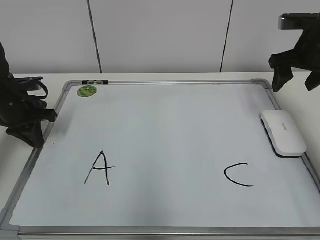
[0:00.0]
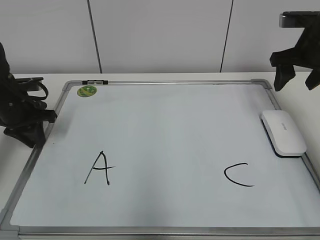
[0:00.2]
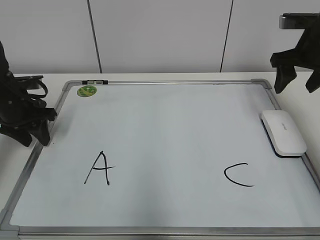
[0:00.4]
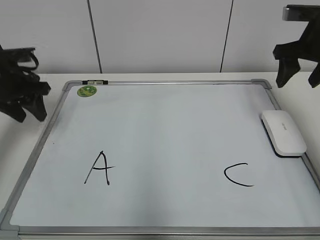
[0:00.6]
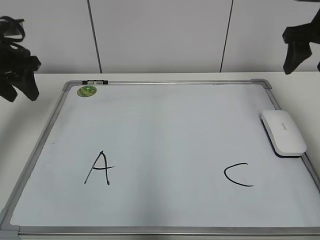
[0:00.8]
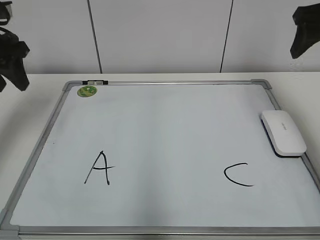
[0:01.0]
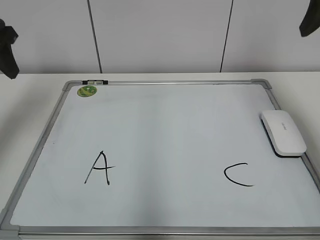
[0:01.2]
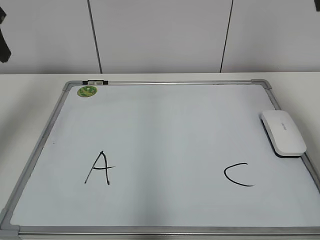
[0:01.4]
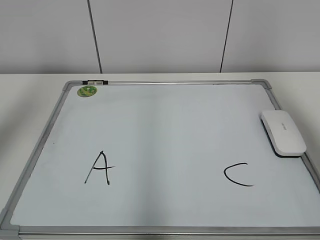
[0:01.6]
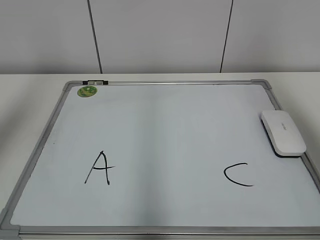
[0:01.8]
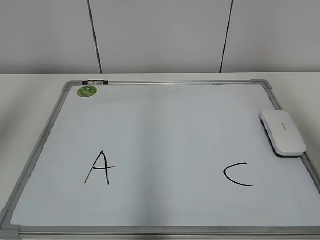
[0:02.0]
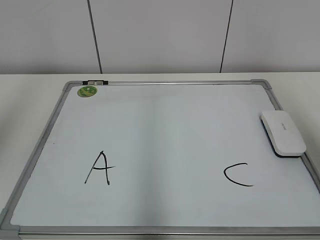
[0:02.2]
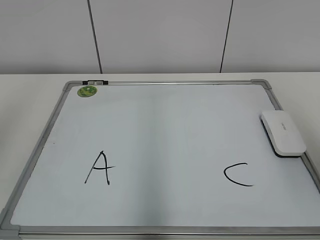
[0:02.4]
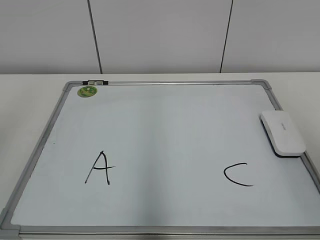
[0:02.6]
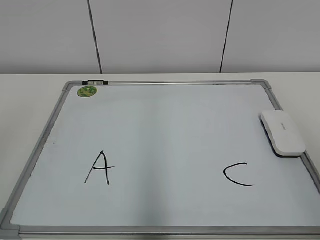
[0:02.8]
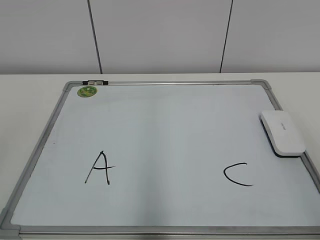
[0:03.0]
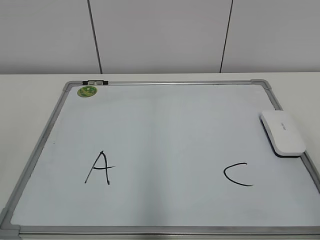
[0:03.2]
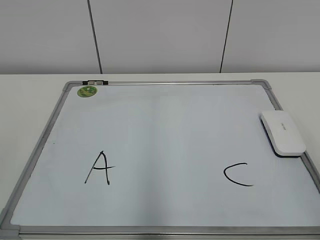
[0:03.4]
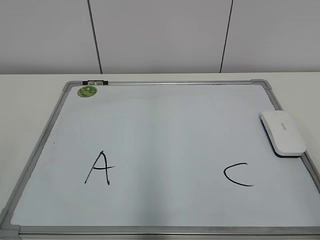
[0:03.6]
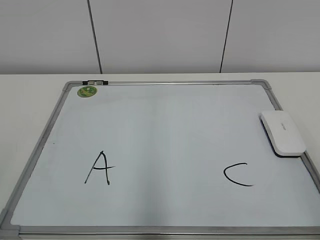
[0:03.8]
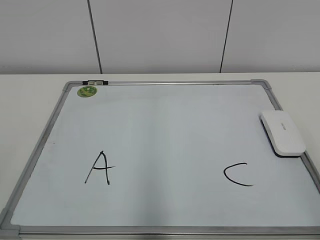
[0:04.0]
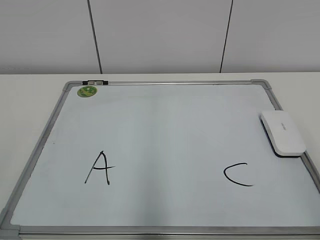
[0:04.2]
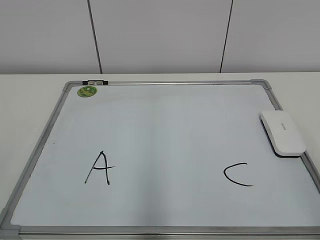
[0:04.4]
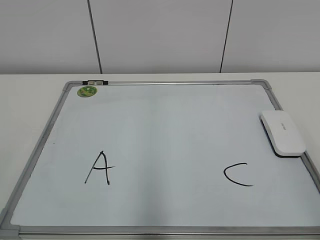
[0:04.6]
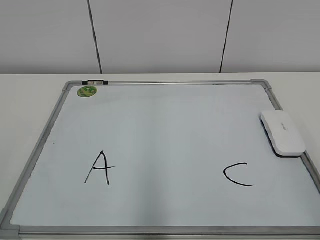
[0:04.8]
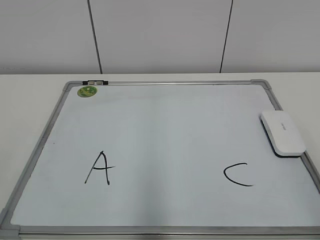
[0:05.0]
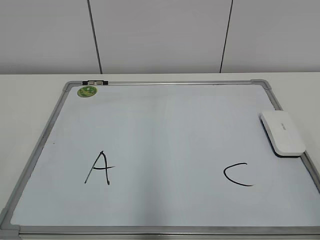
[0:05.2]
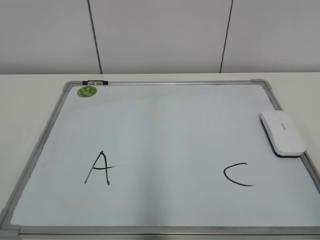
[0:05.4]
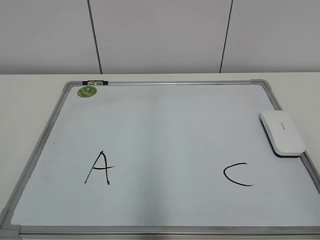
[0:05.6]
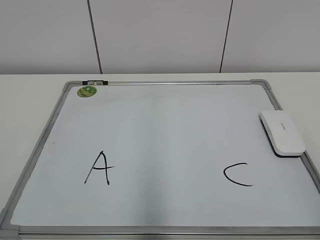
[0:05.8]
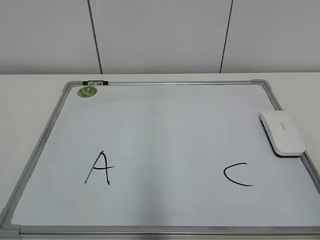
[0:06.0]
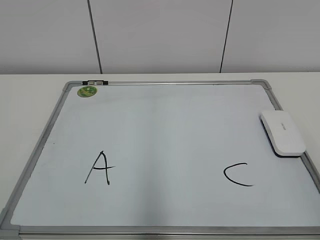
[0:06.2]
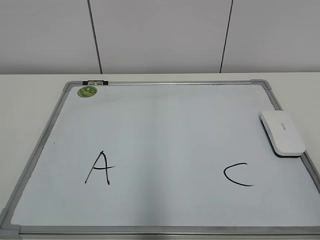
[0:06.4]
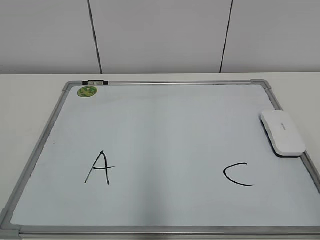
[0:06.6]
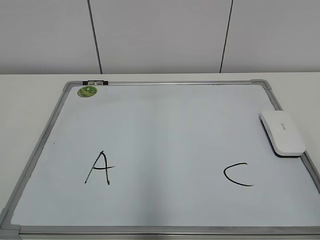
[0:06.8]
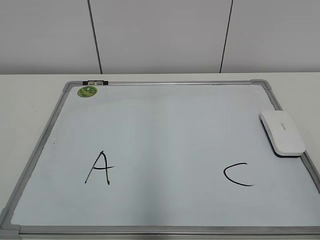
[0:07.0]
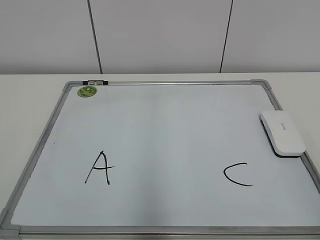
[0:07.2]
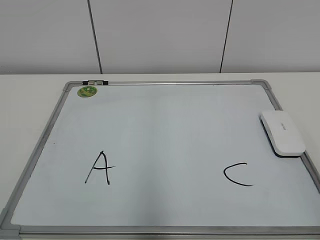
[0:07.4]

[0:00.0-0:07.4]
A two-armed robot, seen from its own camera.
Task of the whole recording: pick up the eraser on the blackboard and erase the letter "B".
0:00.0 to 0:01.4: The right gripper moves upward and backward, some 20 cm, and closes up. The left gripper shifts approximately 20 cm upward, and opens its fingers.
0:01.4 to 0:03.0: The grippers both shift backward by approximately 30 cm.
0:06.0 to 0:07.4: Both grippers stay about where they are.

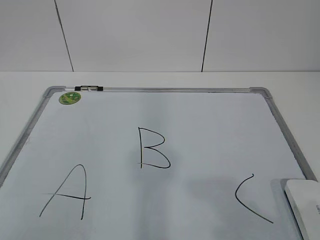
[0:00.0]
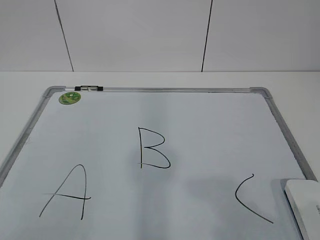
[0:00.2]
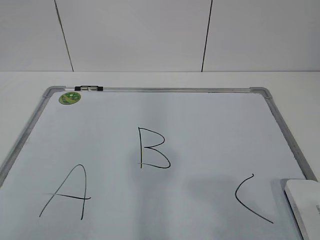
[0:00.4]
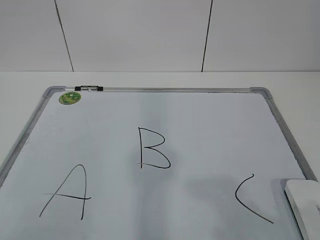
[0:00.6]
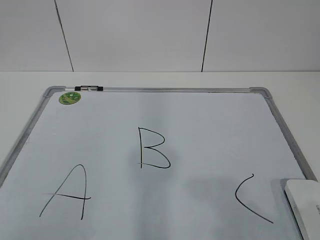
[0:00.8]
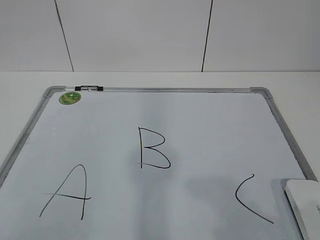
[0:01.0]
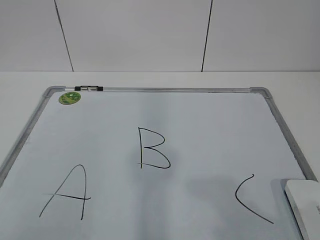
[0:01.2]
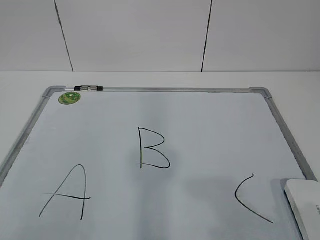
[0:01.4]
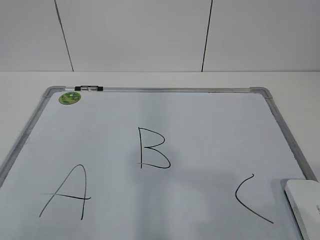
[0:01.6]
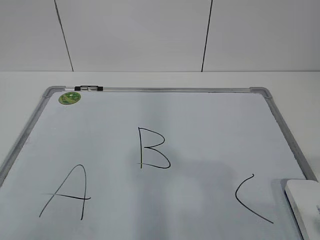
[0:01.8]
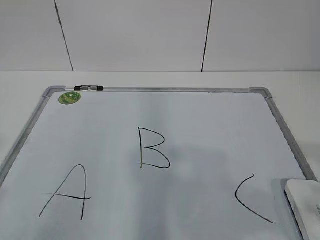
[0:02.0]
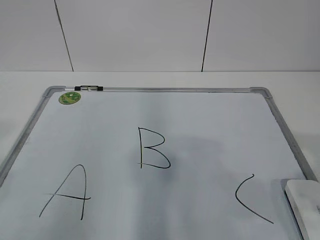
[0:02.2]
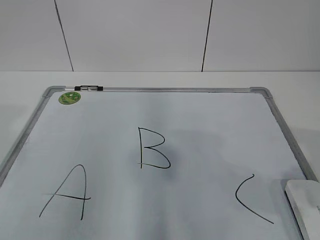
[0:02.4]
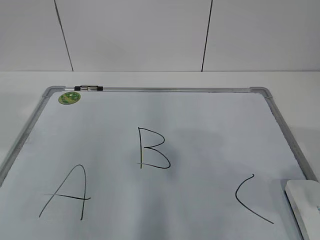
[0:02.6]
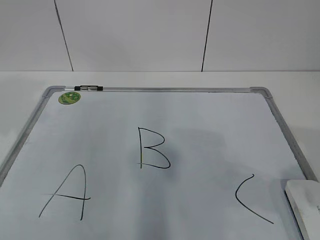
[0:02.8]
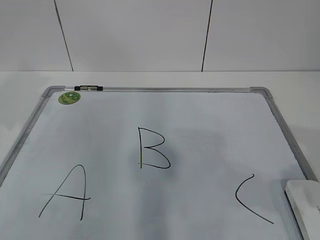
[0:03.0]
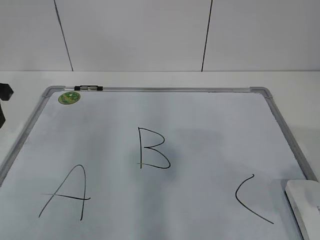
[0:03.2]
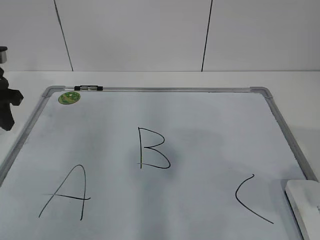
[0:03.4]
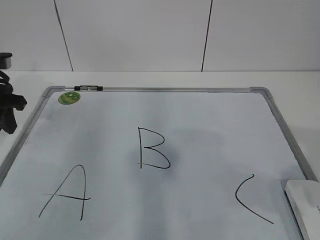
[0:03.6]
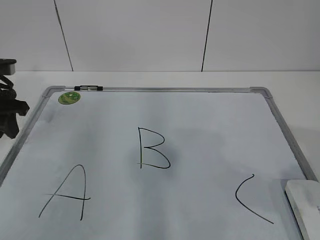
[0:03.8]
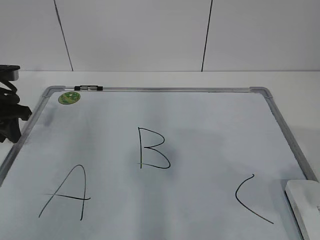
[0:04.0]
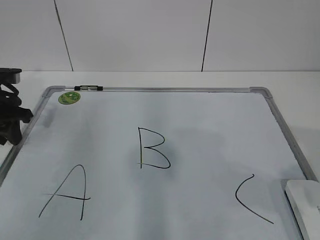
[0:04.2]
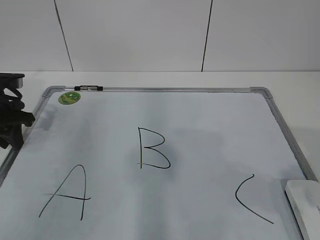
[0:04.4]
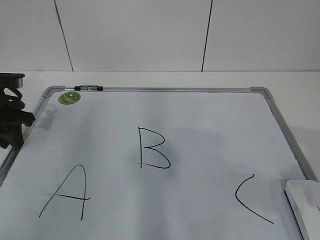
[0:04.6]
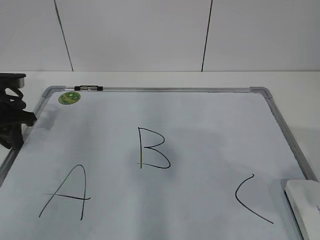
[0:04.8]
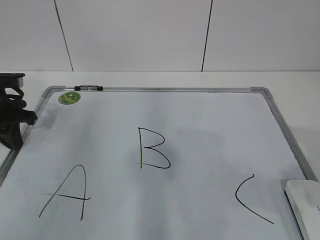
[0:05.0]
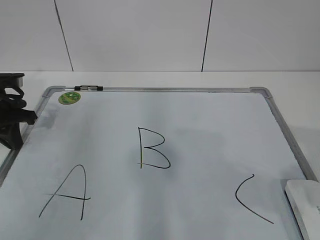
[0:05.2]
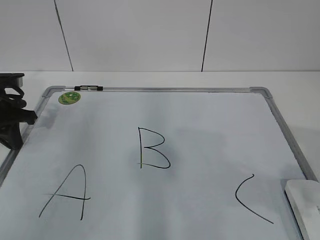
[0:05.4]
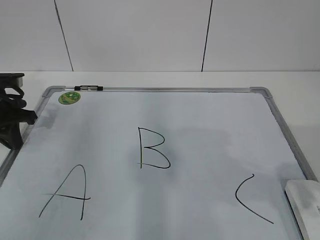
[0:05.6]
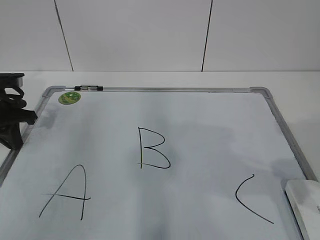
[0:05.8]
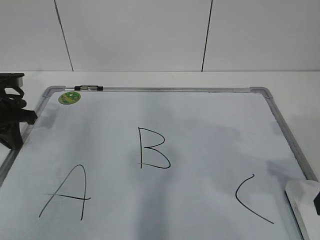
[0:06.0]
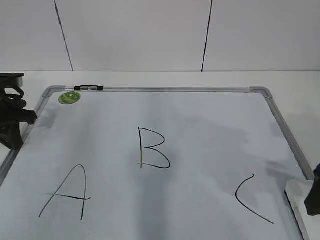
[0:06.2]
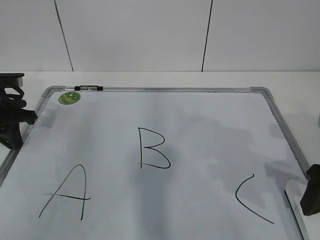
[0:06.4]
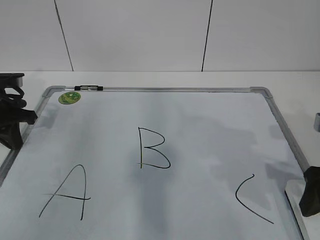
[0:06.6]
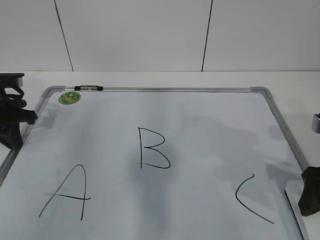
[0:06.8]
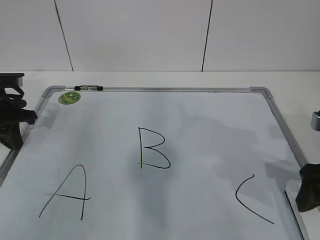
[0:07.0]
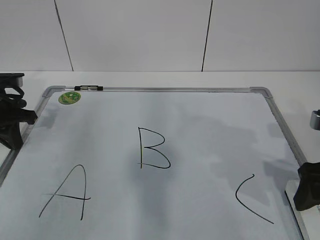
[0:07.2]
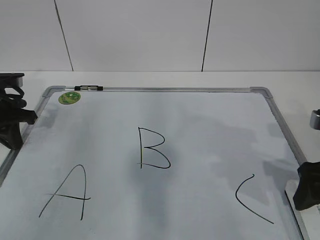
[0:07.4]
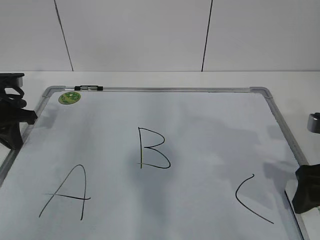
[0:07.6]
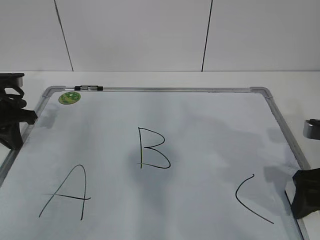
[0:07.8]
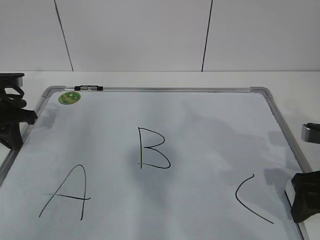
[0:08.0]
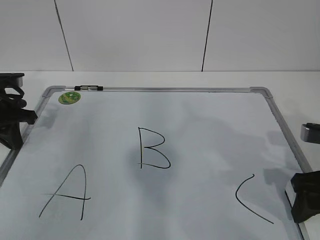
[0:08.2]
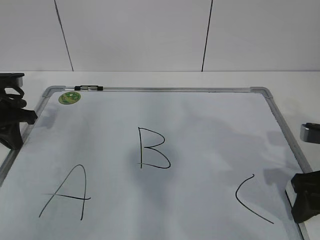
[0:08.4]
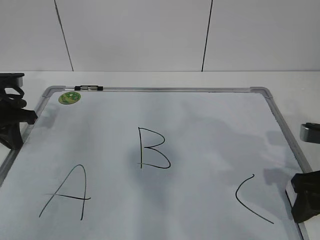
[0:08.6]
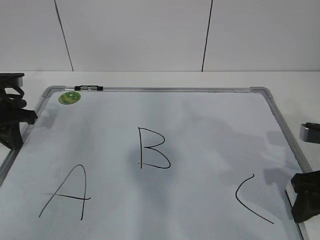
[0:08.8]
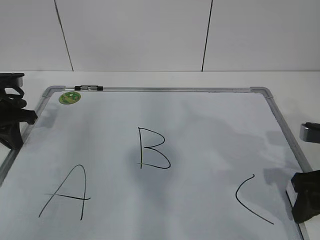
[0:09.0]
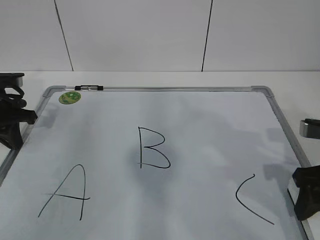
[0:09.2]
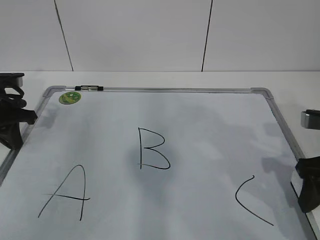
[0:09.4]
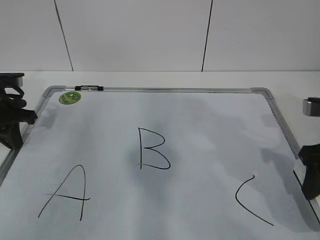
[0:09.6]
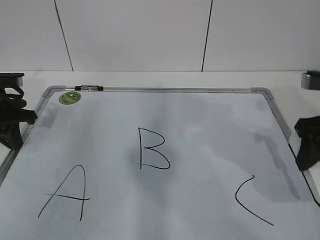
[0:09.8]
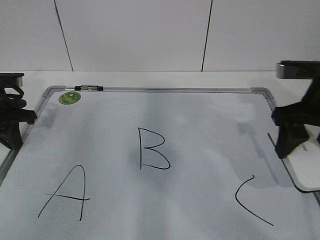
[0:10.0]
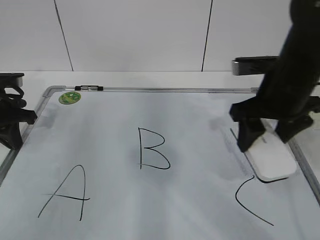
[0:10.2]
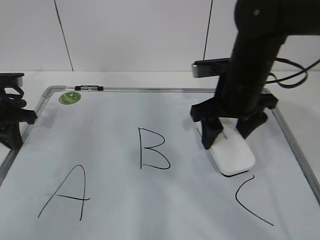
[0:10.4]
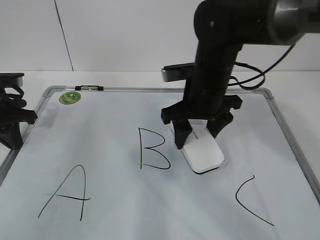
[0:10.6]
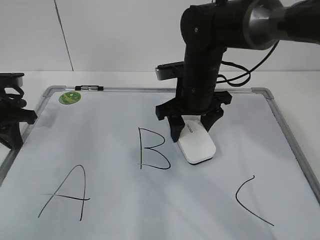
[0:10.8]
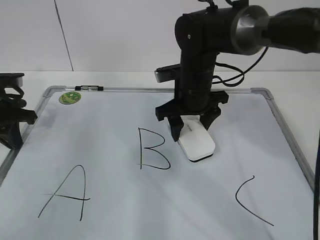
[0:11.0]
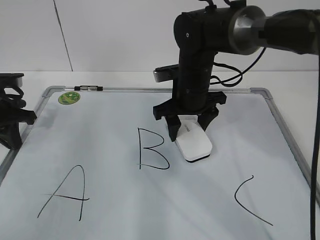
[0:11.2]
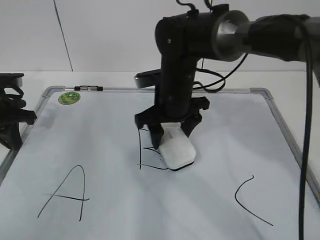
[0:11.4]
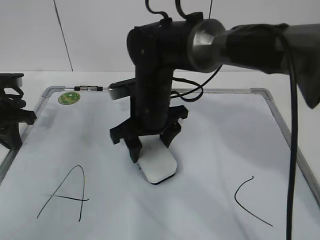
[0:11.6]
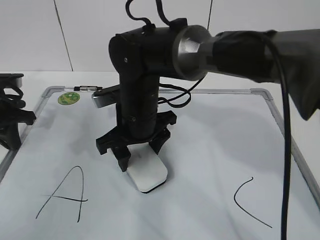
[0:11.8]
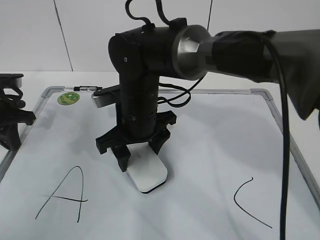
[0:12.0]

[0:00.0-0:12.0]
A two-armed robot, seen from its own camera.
Task of the whole recording: pick up the eraser on the blackboard and erase the letter "B".
Step, 0:00.0 to 0:04.0: Hold the drawing board steady with your left hand.
0:01.6 to 0:03.0: The right gripper travels forward by roughly 10 cm. The left gripper goes about 30 cm forward.
0:03.0 to 0:04.4: The left gripper is displaced downward and forward by some 15 cm.
0:06.0 to 0:07.6: The right gripper travels downward by some 5 cm.
0:07.6 to 0:09.0: The right gripper closes its fingers.
0:09.0 to 0:10.4: The right gripper shifts approximately 20 cm to the left and forward.
0:10.4 to 0:12.0: The right gripper shifts some 15 cm to the left.

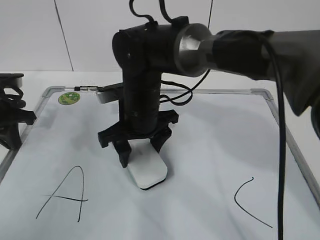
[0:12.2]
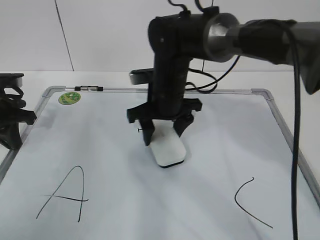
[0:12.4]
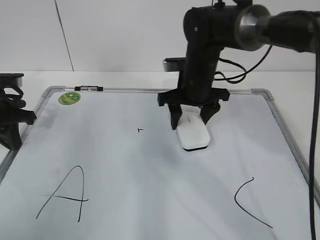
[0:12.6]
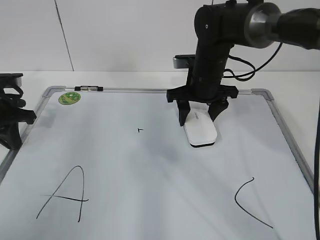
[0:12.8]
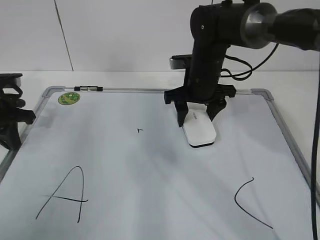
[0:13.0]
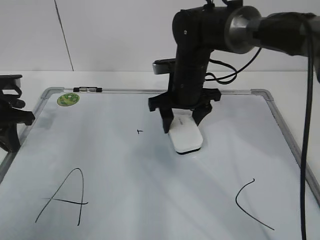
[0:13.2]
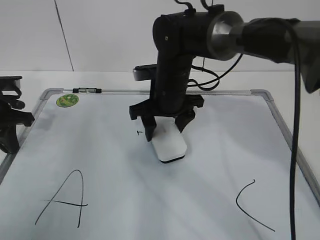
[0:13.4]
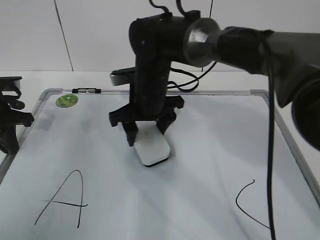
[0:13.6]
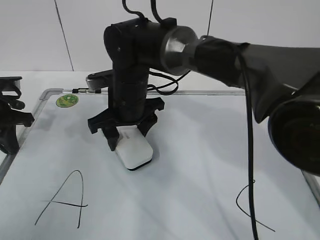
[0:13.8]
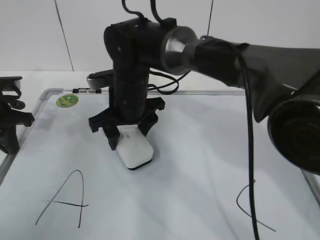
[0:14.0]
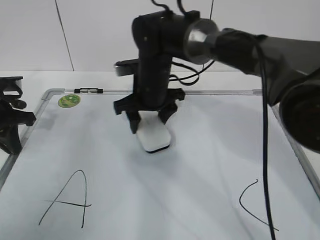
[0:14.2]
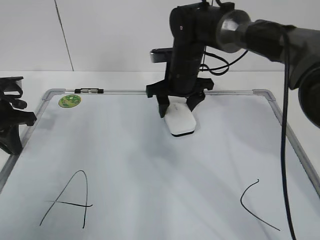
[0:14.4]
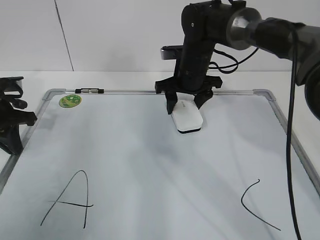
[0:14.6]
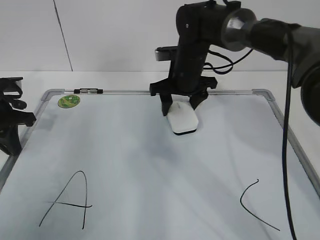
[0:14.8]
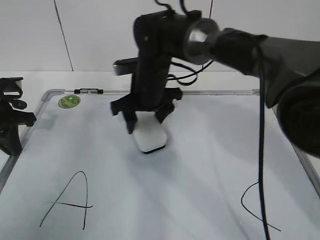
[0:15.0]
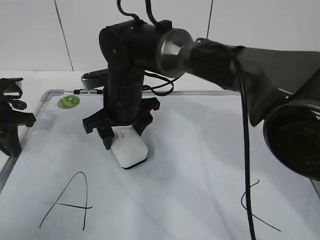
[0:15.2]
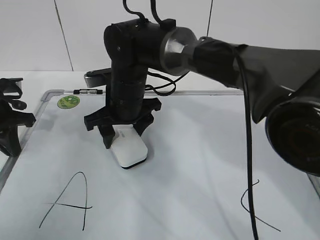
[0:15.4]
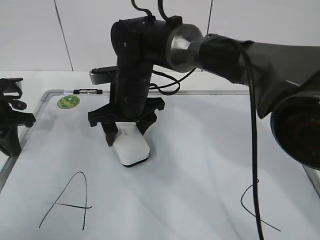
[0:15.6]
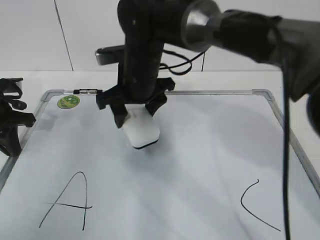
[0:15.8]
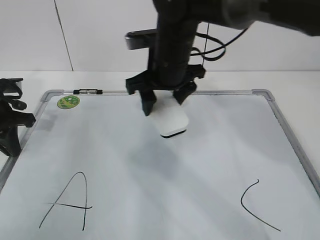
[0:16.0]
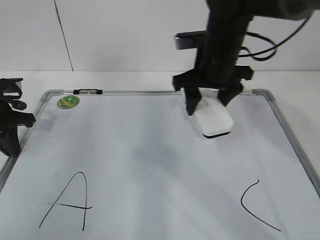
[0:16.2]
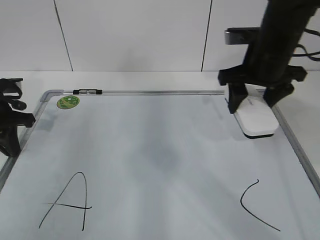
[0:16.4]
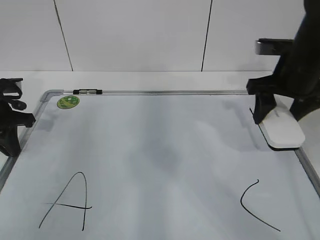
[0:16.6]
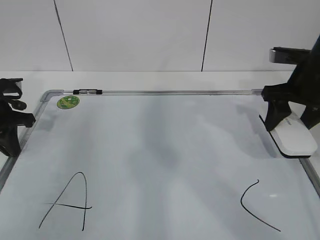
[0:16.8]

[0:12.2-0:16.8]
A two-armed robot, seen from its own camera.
Task of the whole recording: pick up the eraser on the blackboard and erase the letter "B".
Step, 0:13.2 to 0:15.4: Put down the eraser with your right hand.
0:12.2 to 0:13.8: The right gripper travels to the right and back again, approximately 10 cm each way.
0:13.8 to 0:15.2: The right gripper moves roughly 15 cm to the right and comes back.
0:15.2 to 0:16.8: The right gripper moves to the right, approximately 30 cm.
